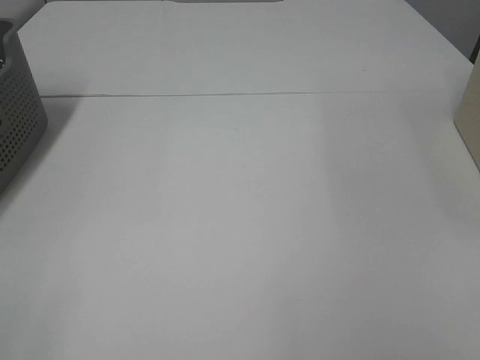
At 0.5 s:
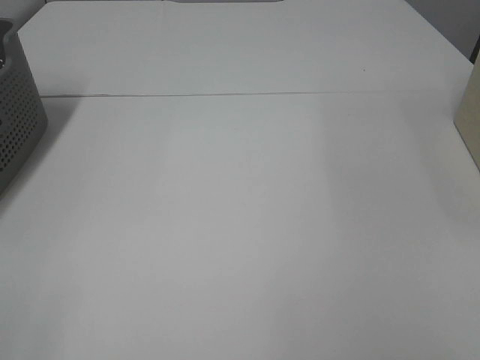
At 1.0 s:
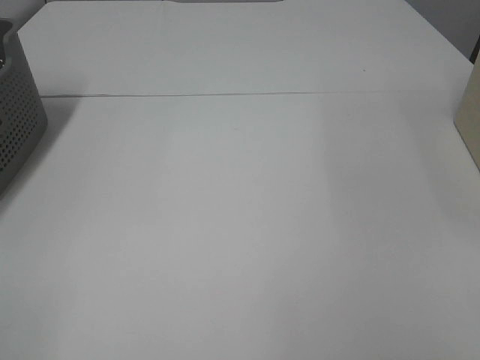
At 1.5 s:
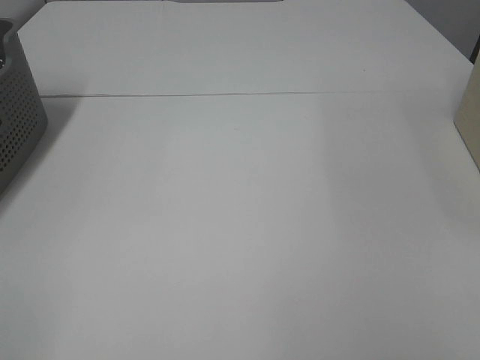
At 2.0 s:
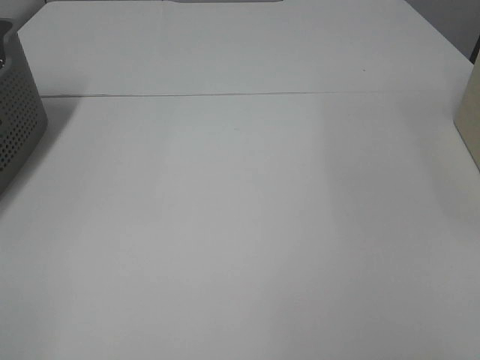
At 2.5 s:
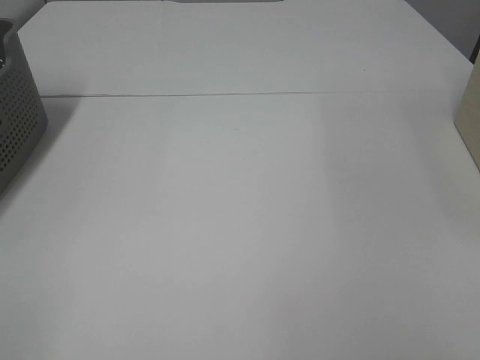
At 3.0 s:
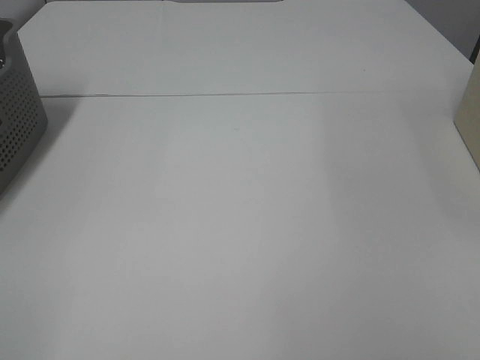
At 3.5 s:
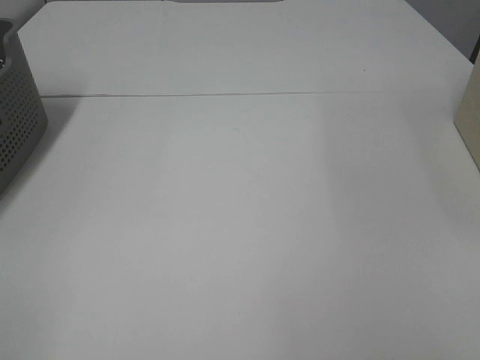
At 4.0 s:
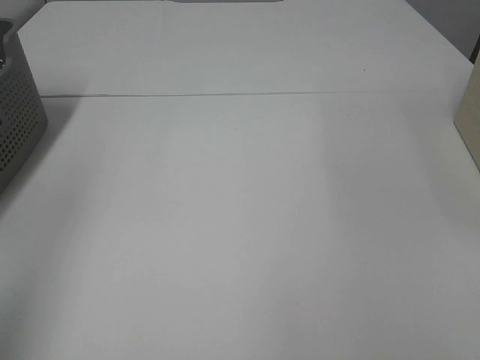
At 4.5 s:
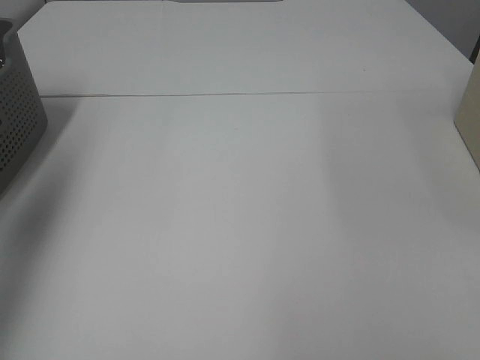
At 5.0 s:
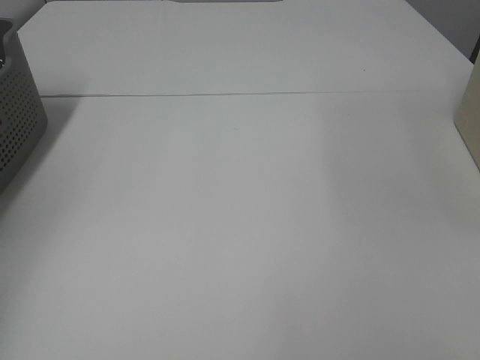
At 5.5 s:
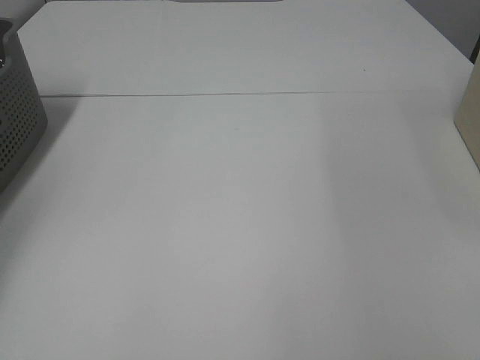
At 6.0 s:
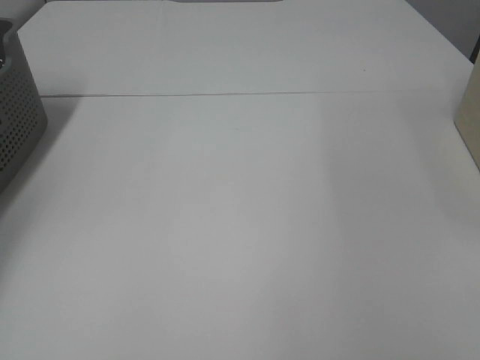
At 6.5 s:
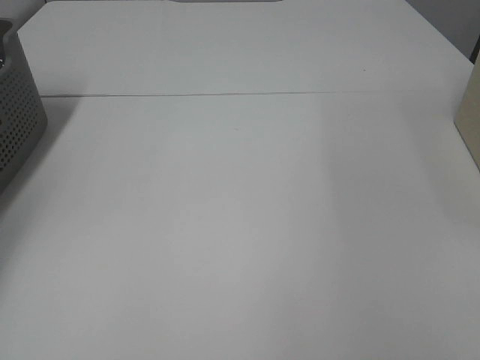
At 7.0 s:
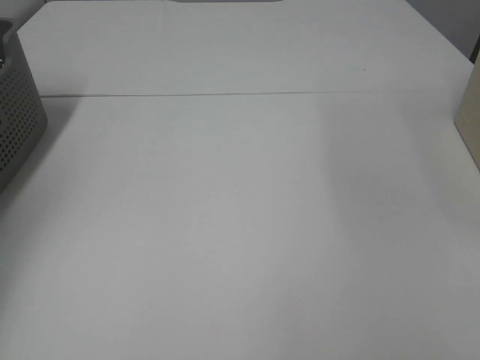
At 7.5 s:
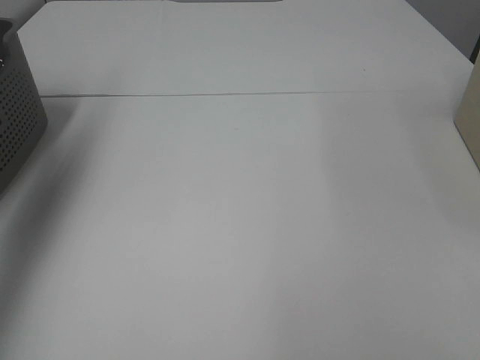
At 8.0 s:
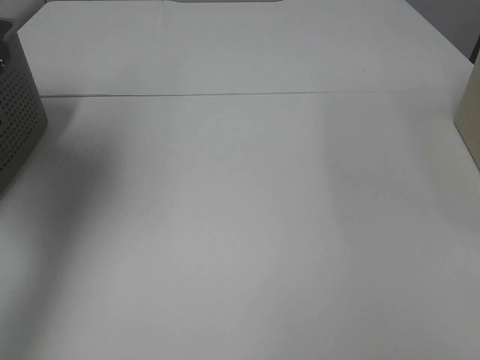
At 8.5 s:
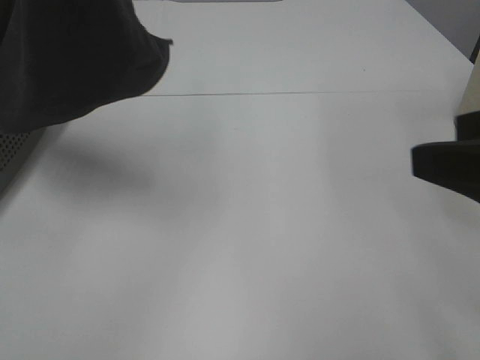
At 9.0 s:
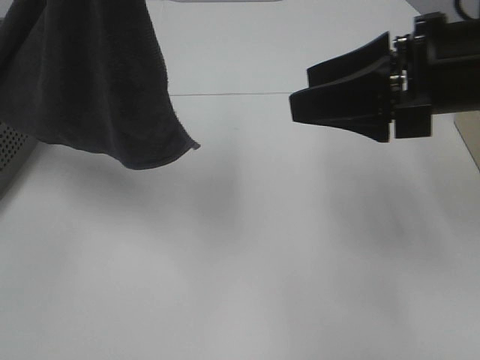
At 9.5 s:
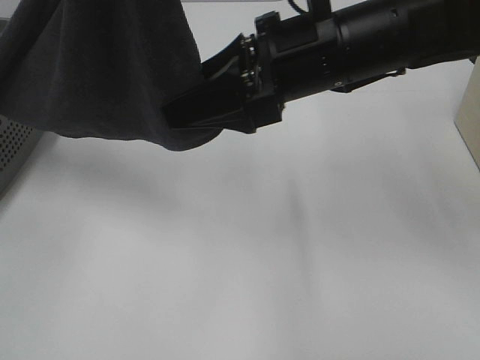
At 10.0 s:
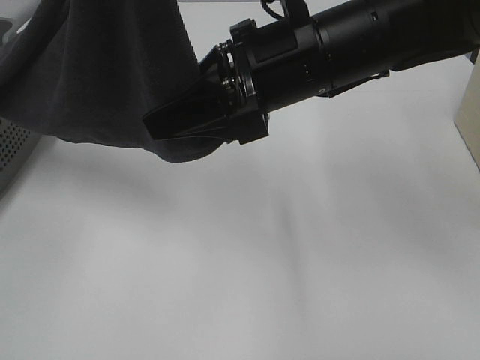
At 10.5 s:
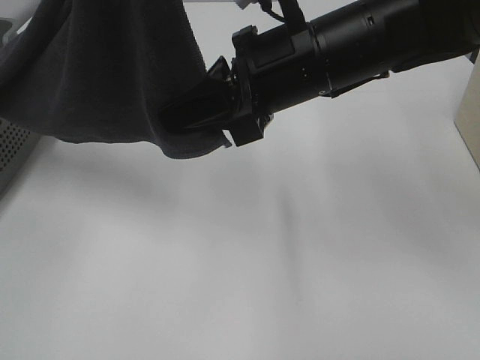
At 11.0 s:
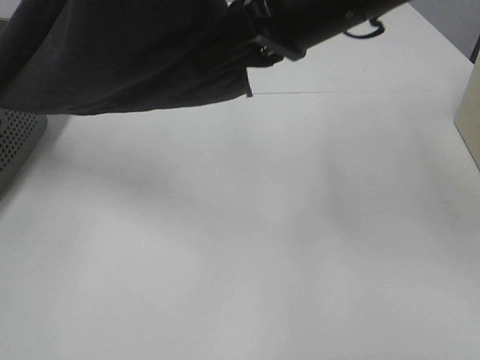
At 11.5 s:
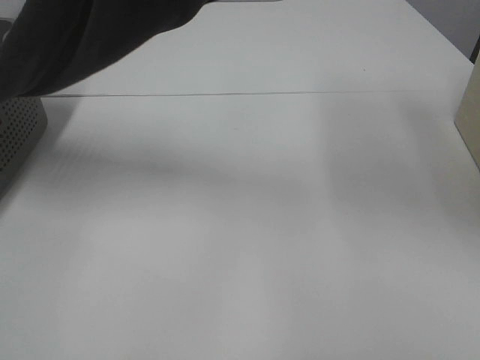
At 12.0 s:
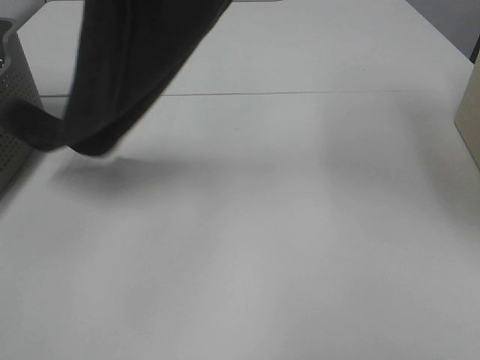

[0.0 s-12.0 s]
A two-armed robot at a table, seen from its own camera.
Task of the whole recording: Remove the towel and place it.
Step, 7.5 to 11.0 s: Right hand: grab a corner of the grey towel and straighten it.
0.0 to 2.0 s: Both grippers stay about where they are.
2.0 to 4.0 s: The left gripper heads forward and upward, covering roughly 15 cm.
4.0 to 6.0 s: The left gripper goes approximately 40 cm forward, downward and to the left.
6.0 to 8.0 s: The left gripper moves upward and to the right, about 35 cm, and closes.
8.0 to 10.0 s: The left gripper heads to the right, covering about 15 cm. The right gripper heads forward and to the left, covering roughly 35 cm.
10.0 to 12.0 s: The right gripper moves upward, approximately 25 cm, and closes its fingers. The left gripper travels forward by about 5 cm.

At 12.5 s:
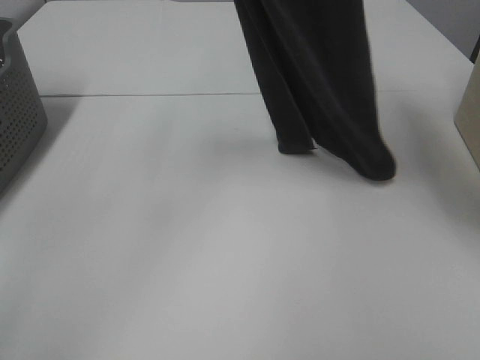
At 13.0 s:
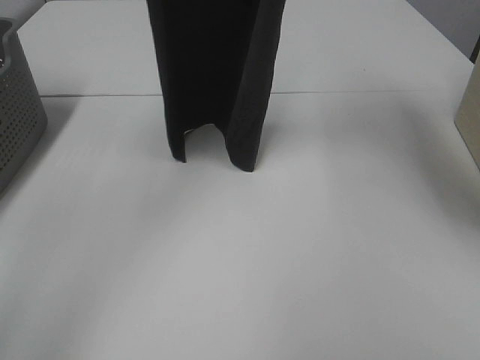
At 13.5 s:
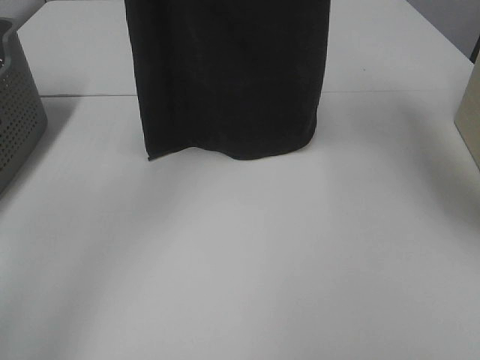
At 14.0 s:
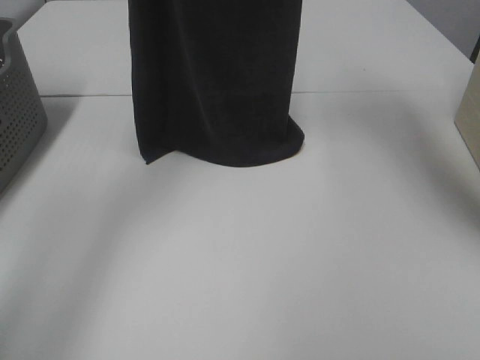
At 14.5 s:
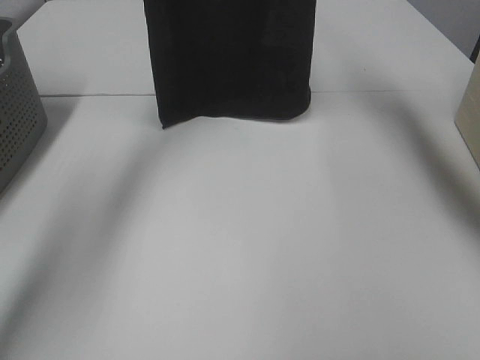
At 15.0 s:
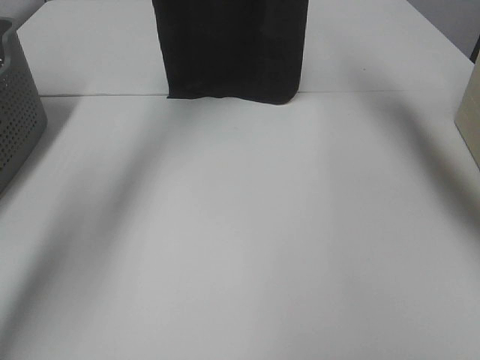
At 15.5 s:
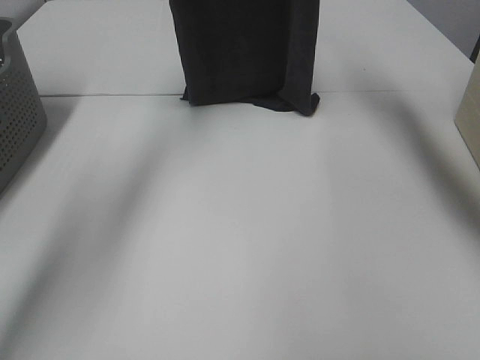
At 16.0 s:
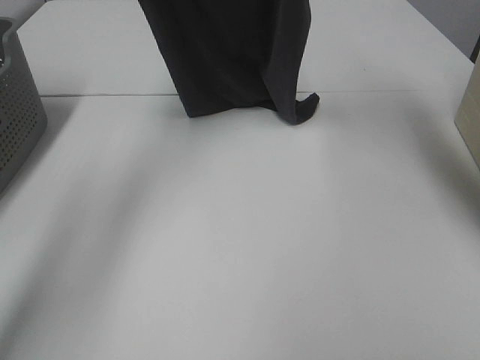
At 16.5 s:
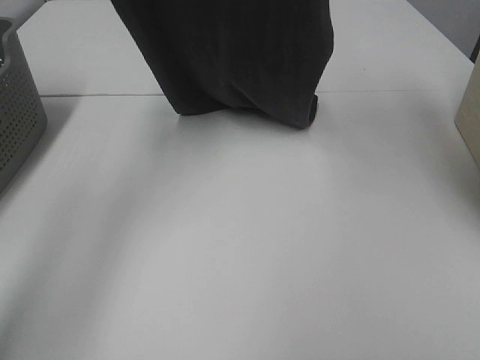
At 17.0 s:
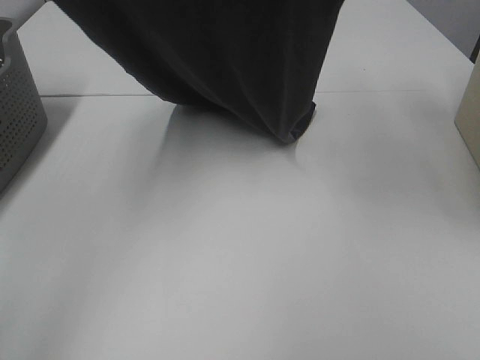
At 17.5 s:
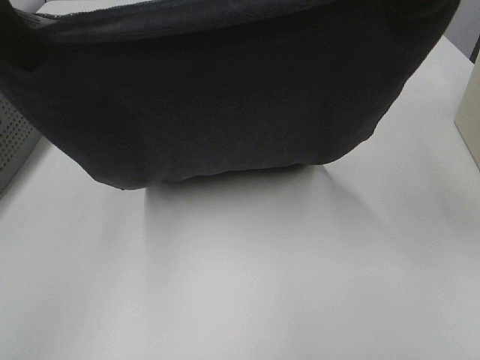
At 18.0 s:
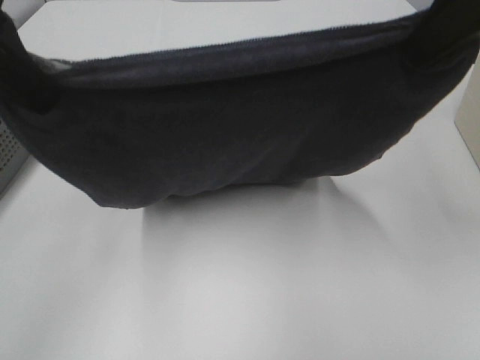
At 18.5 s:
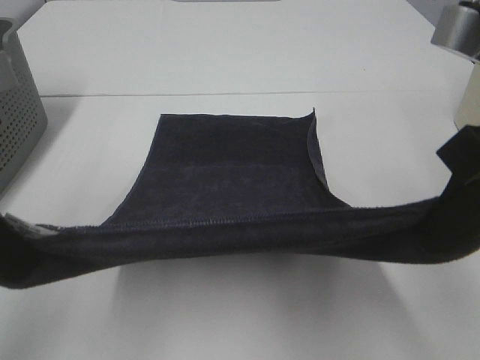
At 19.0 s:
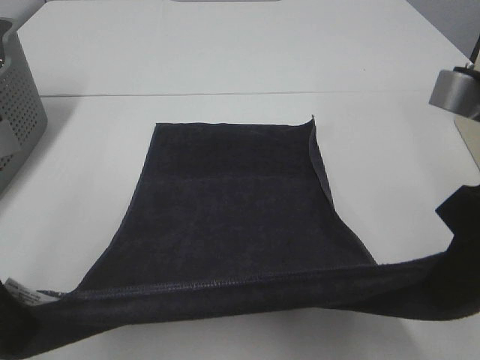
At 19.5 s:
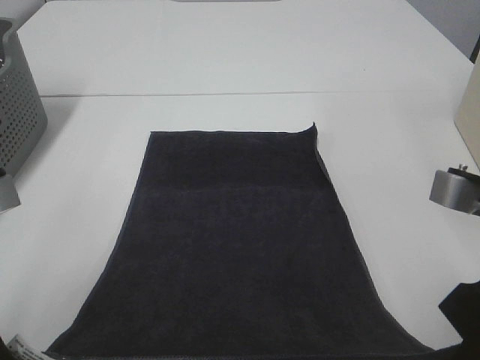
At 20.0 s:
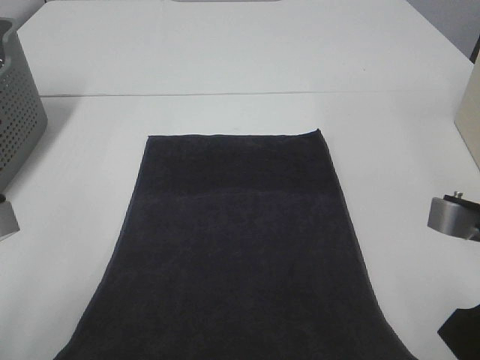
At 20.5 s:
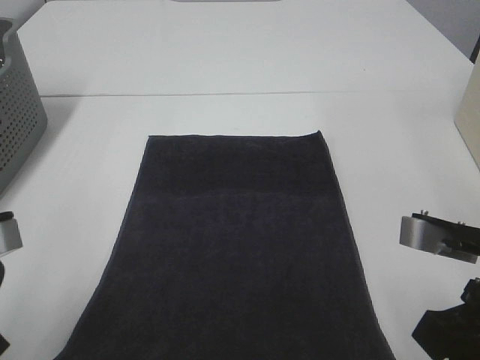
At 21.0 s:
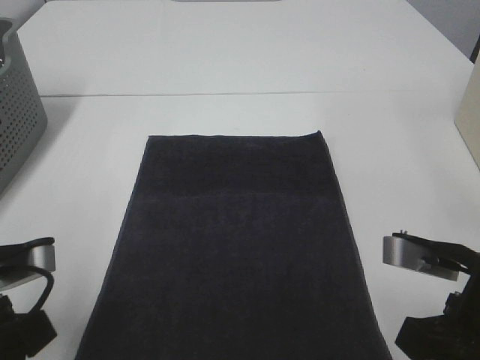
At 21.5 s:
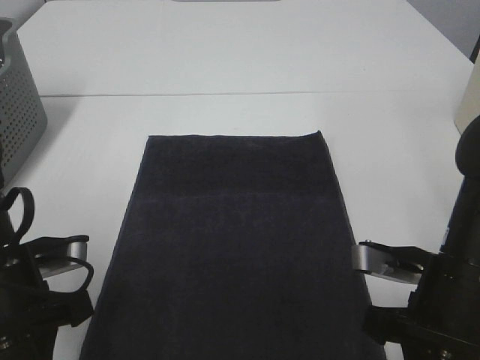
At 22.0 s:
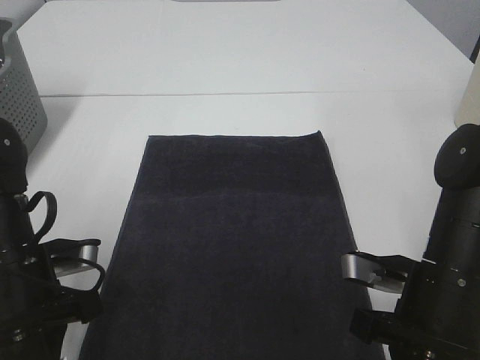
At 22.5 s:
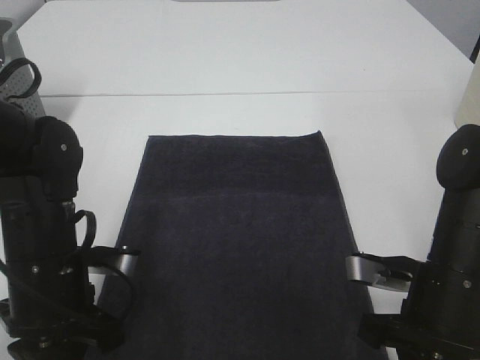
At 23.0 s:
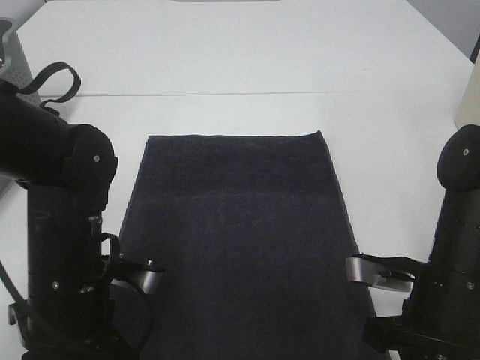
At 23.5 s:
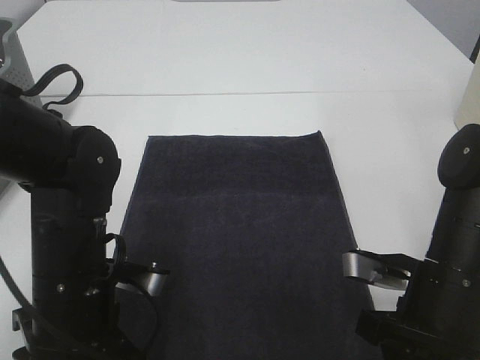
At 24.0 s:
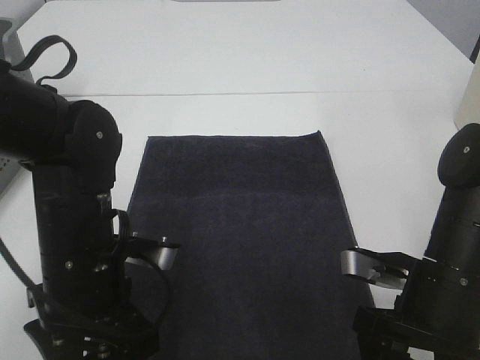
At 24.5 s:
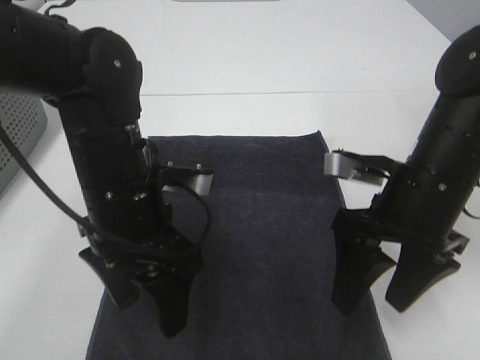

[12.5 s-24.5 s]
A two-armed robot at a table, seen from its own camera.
Task of the whole recording: Remove the towel and place it.
Step, 12.5 to 19.0 s: Left hand: spread the grey towel flat on the table.
Step, 12.5 to 19.0 s: Right hand: spread the grey towel flat on the table.
12.5 to 14.5 s: Both grippers move forward, approximately 15 cm.
14.5 to 16.5 s: The two grippers go some 10 cm backward.
16.5 to 18.5 s: The two grippers go roughly 30 cm backward and downward.
18.5 to 20.5 s: The right gripper is displaced downward by roughly 10 cm; the left gripper is displaced downward and backward by about 10 cm.
20.5 to 22.5 s: The left gripper shifts about 15 cm downward, forward and to the right; the right gripper shifts roughly 10 cm downward.
22.5 to 24.5 s: The left gripper shifts approximately 10 cm to the right and upward, and opens. The right gripper is displaced forward and upward by some 10 cm, and opens up.

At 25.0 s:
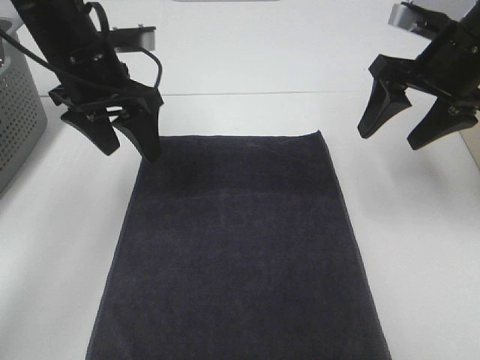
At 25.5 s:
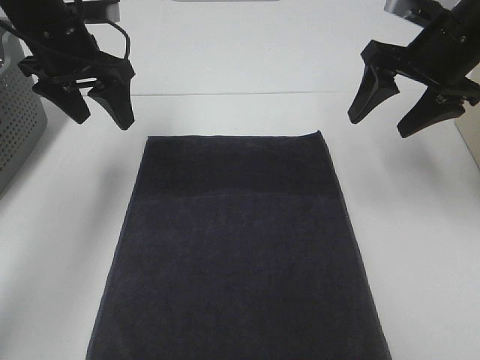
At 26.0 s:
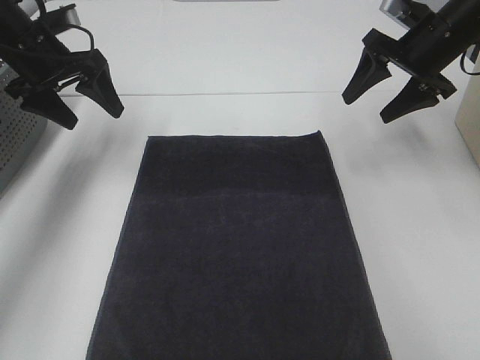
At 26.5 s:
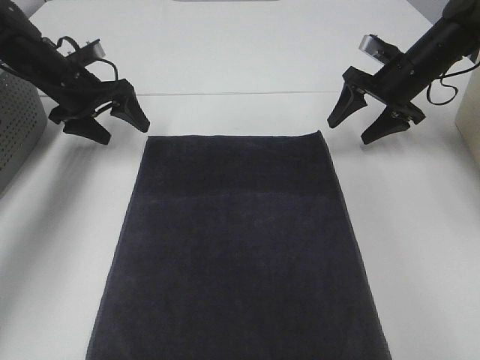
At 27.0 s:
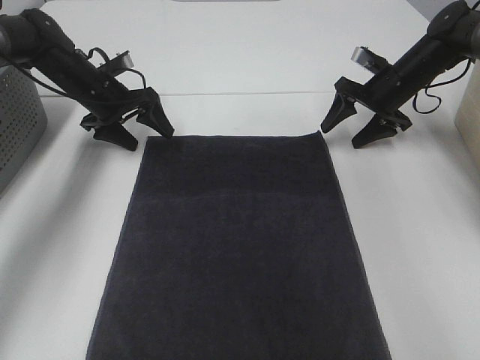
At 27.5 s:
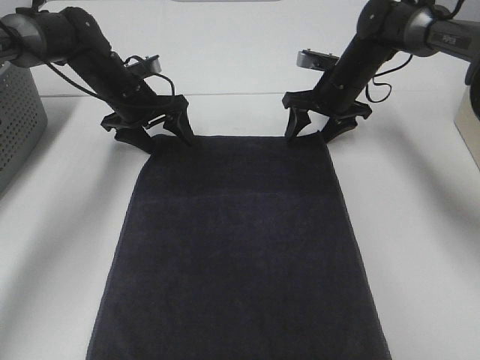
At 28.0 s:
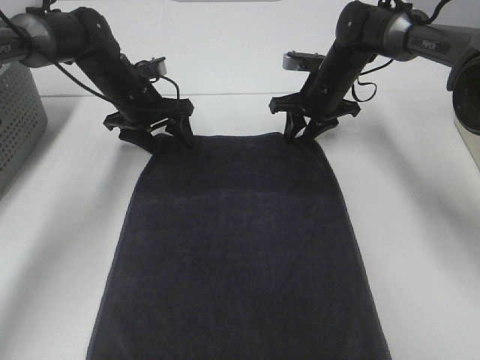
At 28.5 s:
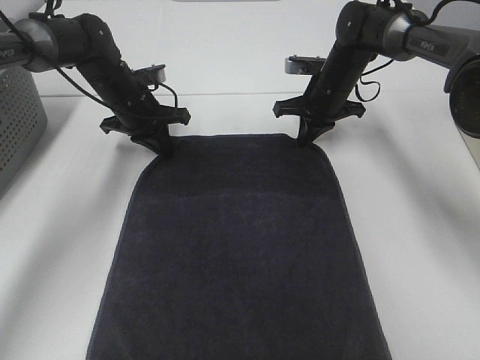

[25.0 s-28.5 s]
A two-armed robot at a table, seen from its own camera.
Task of the whole recording: Remove the towel and place it.
25.0 to 27.0 s: The left gripper shifts approximately 20 cm forward, downward and to the left. The right gripper goes some 20 cm forward and downward.
27.0 to 28.5 s: The right gripper goes roughly 10 cm to the left, and closes up. Meanwhile the left gripper shifts roughly 5 cm to the right, and closes.
